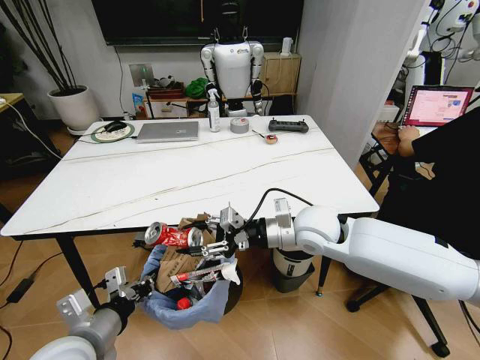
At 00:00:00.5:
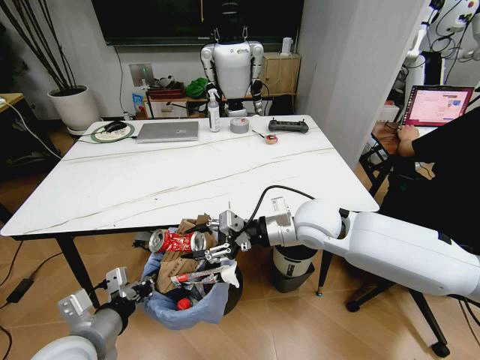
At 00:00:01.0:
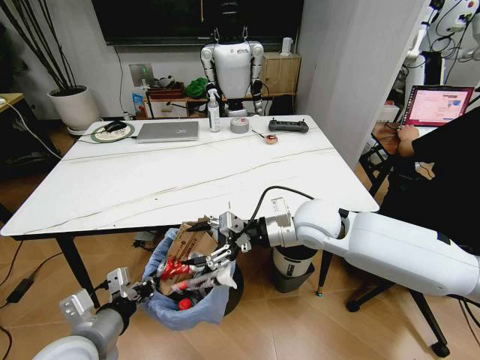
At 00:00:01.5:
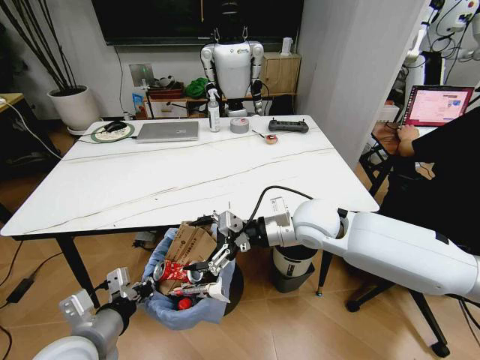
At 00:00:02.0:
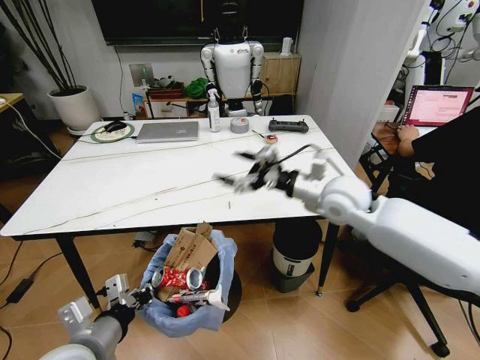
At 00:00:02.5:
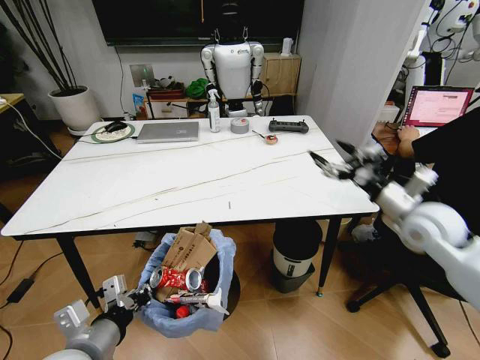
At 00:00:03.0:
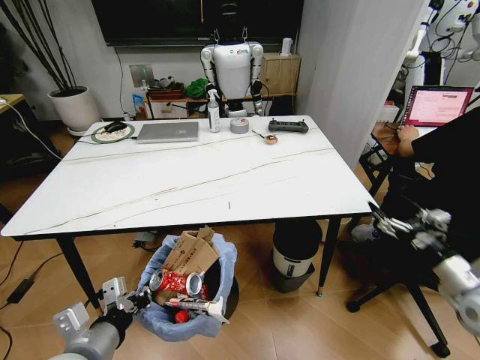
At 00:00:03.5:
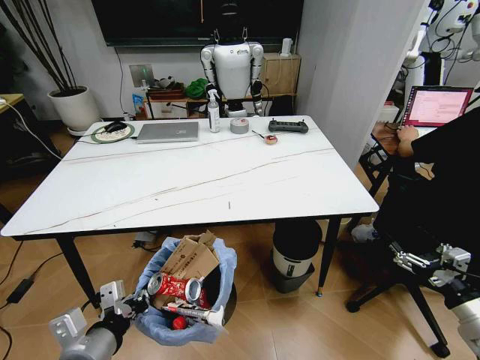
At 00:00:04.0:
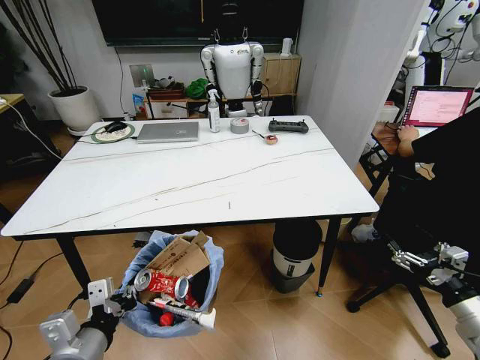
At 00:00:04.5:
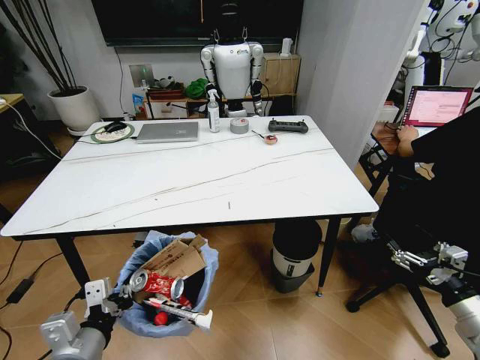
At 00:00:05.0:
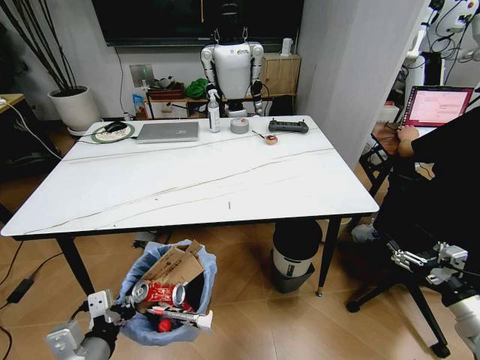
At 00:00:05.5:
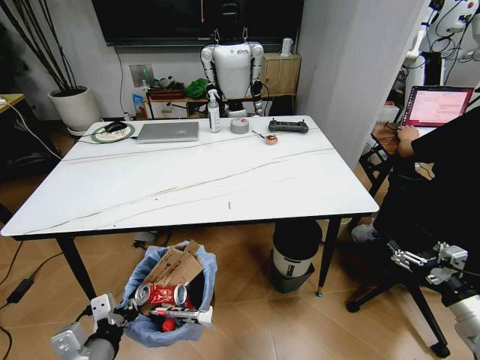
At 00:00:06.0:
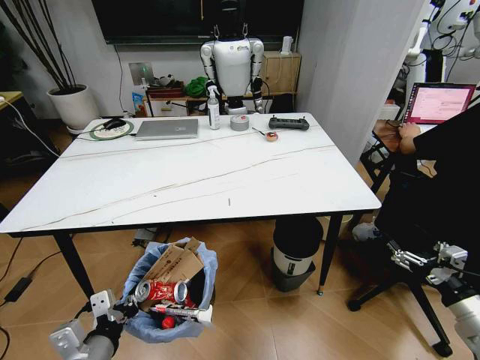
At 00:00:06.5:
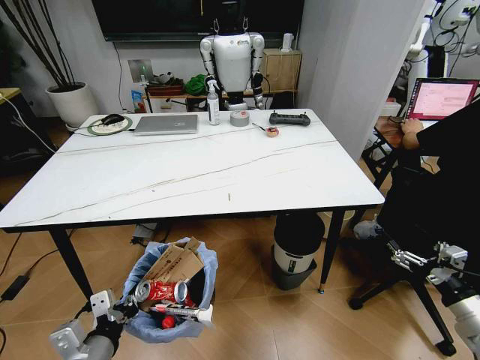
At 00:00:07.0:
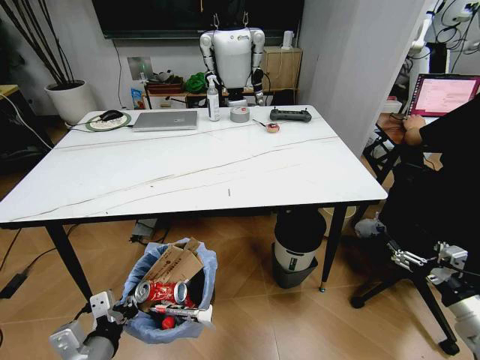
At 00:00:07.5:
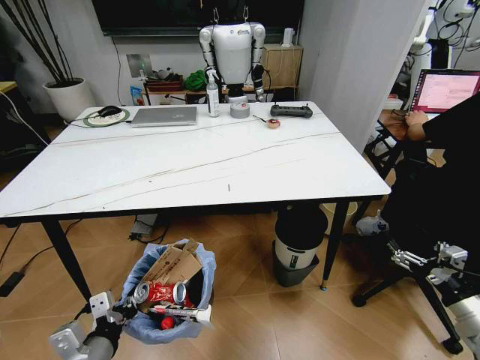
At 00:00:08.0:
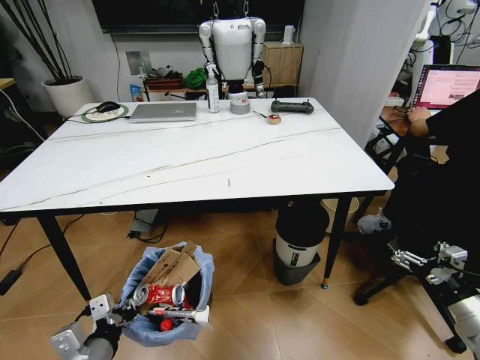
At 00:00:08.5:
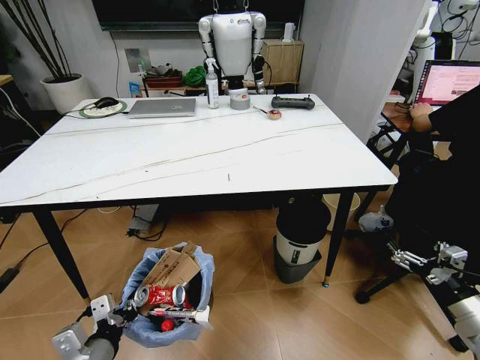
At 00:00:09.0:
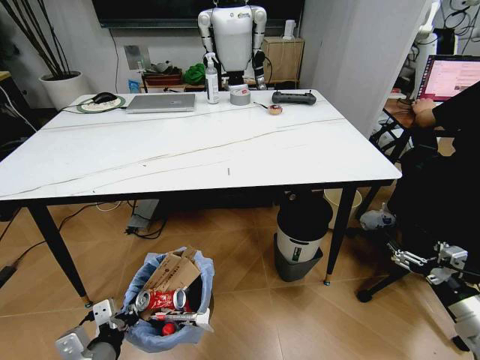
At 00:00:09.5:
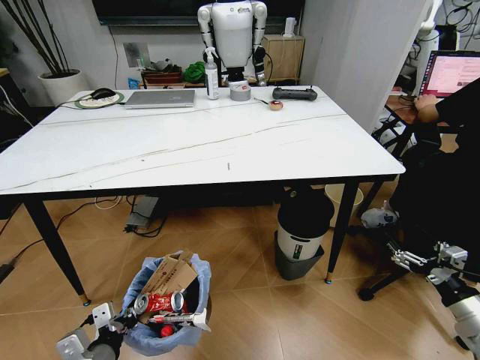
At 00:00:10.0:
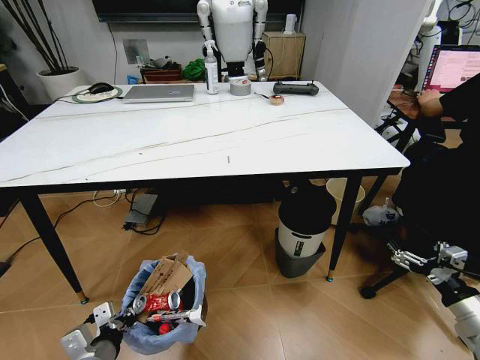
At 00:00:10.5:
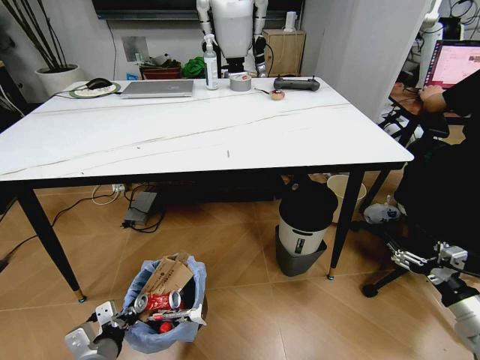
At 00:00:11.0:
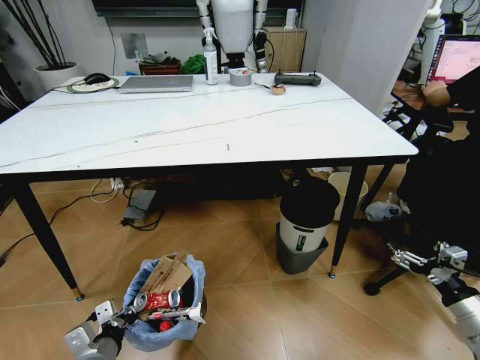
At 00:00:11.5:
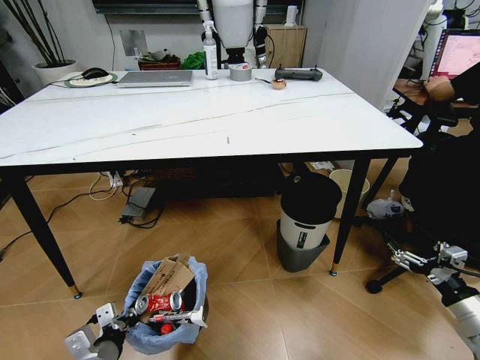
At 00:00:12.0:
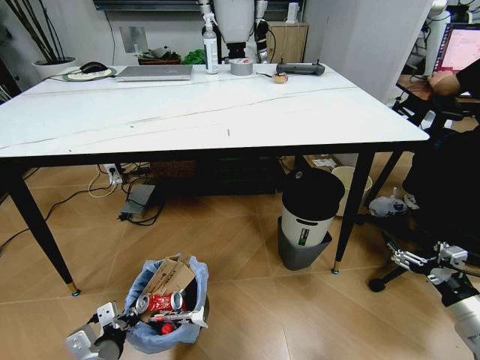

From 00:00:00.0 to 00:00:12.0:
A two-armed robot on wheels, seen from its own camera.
Task of the whole recording: Pick up the trash bin and place the trash from the table into it.
From 00:00:00.0 to 00:00:02.0: The right gripper is displaced to the right by approximately 5 cm, and opens.
From 00:00:02.0 to 00:00:04.0: The right gripper is displaced to the right, backward and downward by about 40 cm.
From 00:00:04.0 to 00:00:06.0: The grippers move only a little.
From 00:00:08.0 to 00:00:10.0: The left gripper travels downward by roughly 5 cm.

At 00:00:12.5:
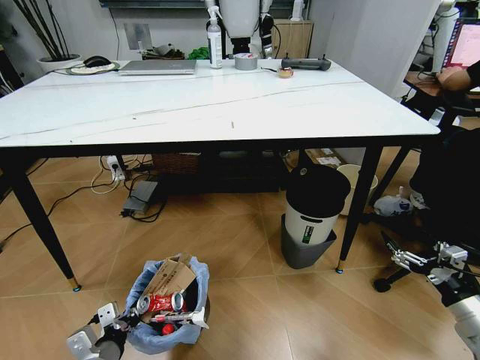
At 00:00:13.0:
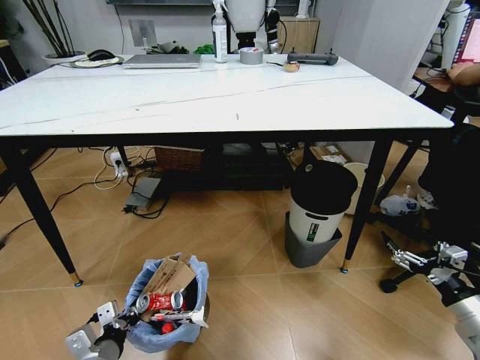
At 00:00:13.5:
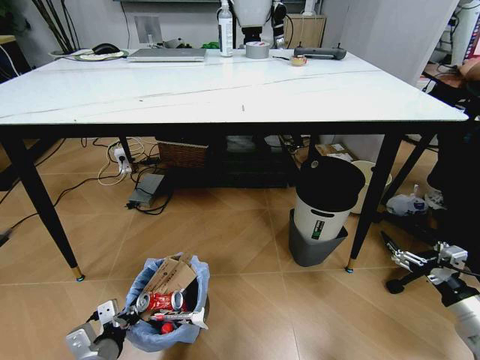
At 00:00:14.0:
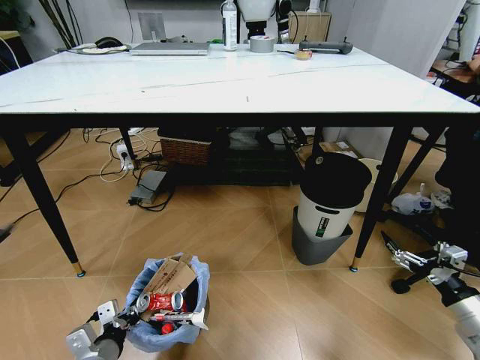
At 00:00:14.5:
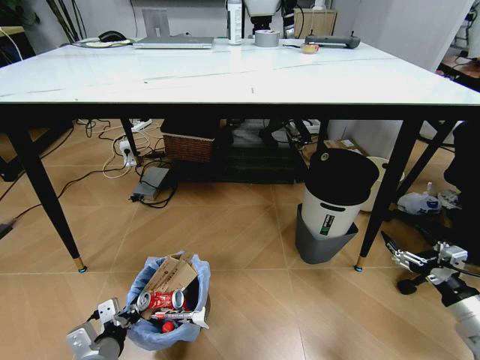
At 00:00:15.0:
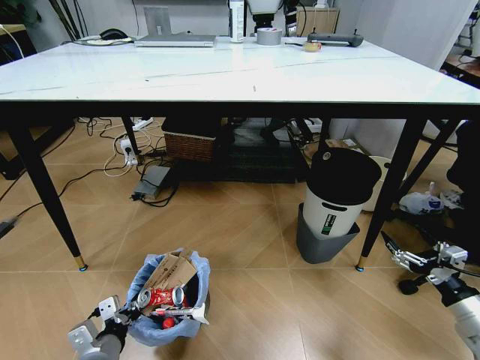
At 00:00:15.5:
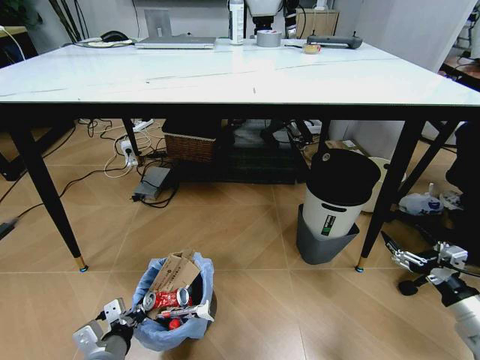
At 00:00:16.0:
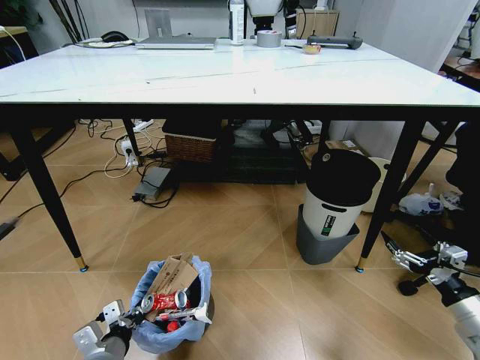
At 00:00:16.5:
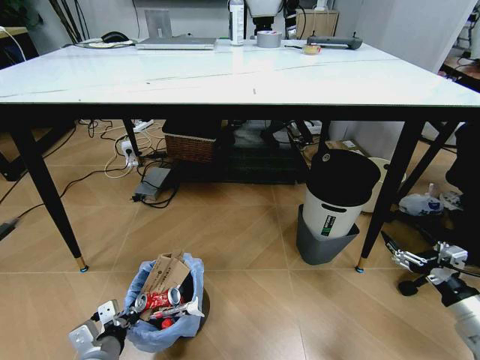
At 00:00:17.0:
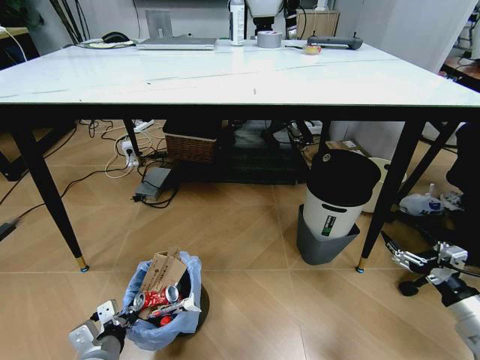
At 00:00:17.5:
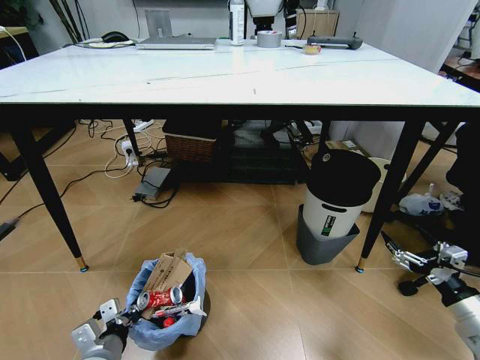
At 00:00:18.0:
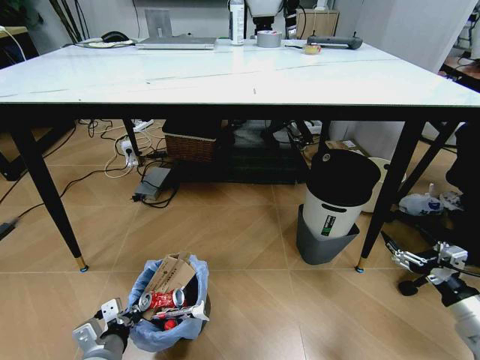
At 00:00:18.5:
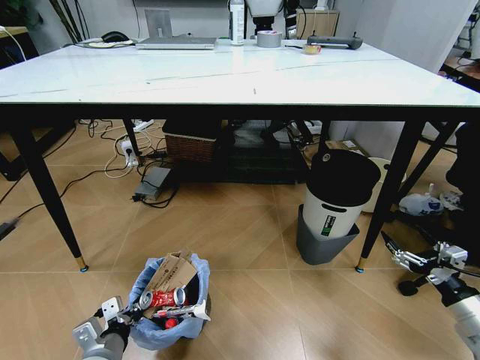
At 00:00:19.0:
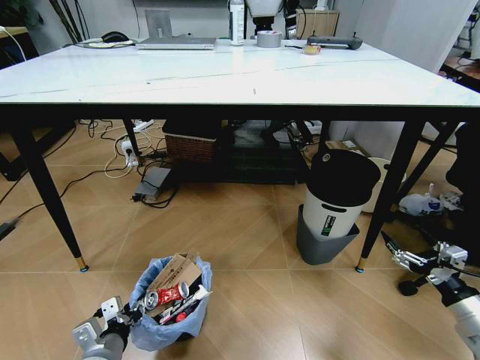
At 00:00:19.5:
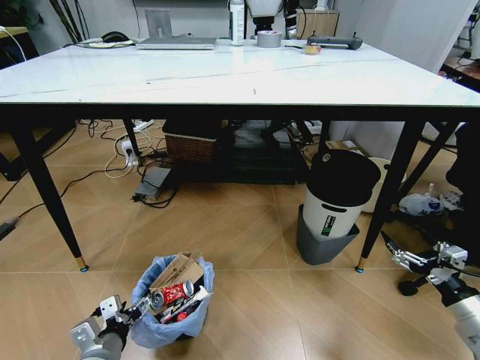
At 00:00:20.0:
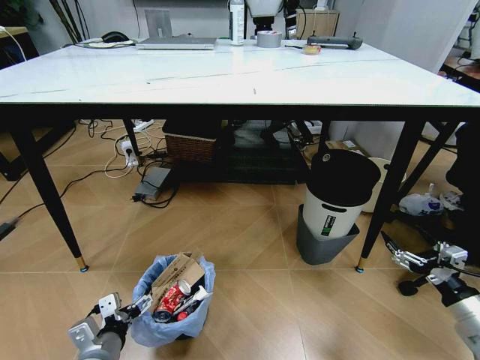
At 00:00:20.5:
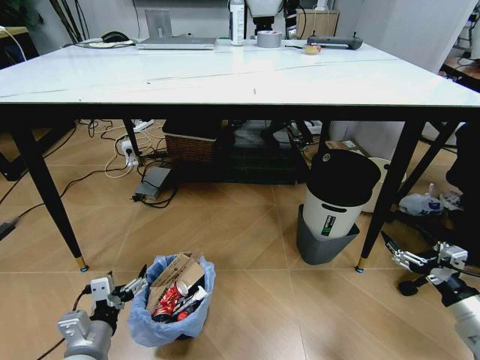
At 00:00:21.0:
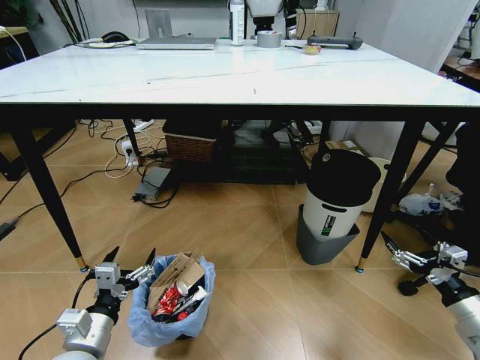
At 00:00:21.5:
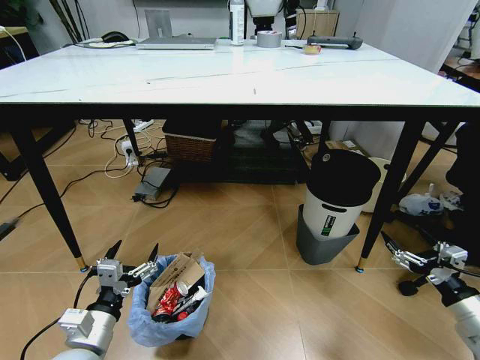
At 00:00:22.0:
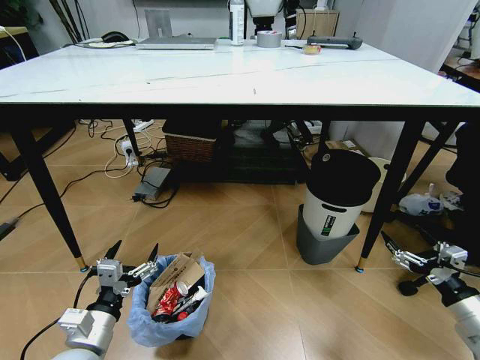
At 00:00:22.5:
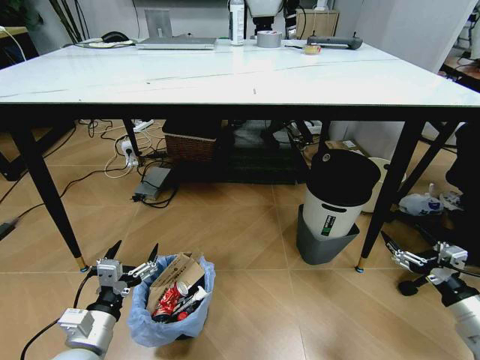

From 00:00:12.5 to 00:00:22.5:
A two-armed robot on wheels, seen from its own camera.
Task of the whole recording: Pick up the trash bin and place the trash from the table into it.
From 00:00:14.5 to 00:00:16.5: The grippers move only a little.
From 00:00:16.5 to 00:00:18.5: Both grippers stay put.
From 00:00:18.5 to 00:00:20.5: The left gripper opens its fingers.
